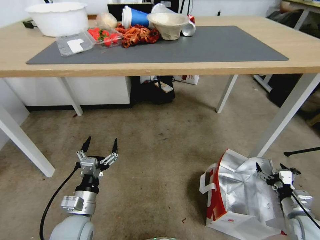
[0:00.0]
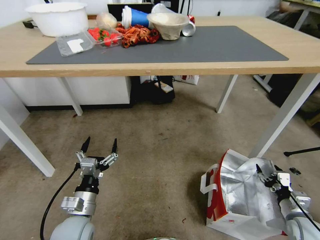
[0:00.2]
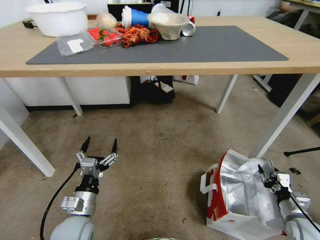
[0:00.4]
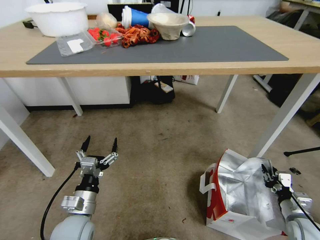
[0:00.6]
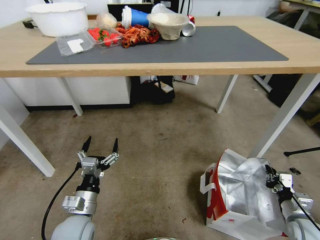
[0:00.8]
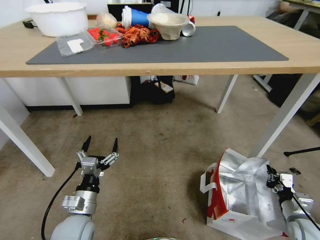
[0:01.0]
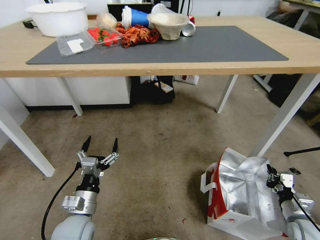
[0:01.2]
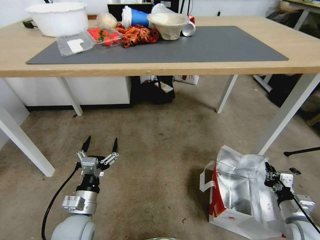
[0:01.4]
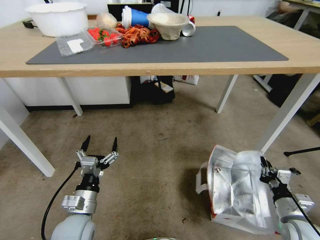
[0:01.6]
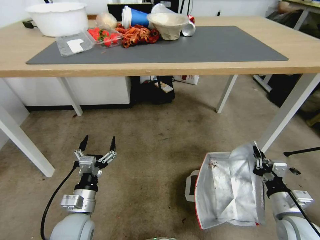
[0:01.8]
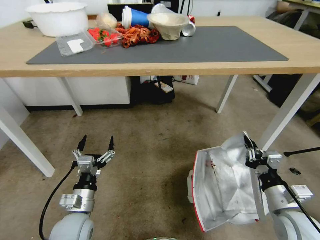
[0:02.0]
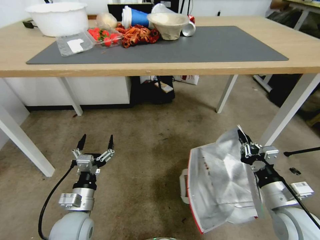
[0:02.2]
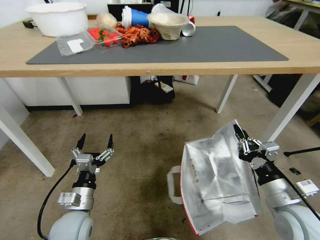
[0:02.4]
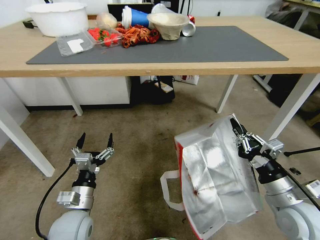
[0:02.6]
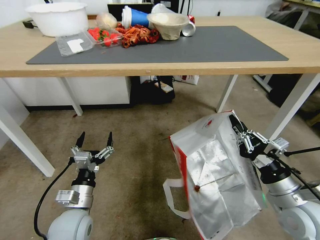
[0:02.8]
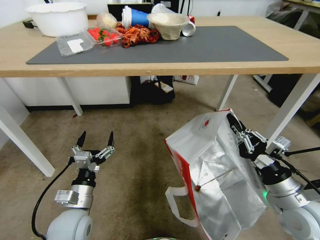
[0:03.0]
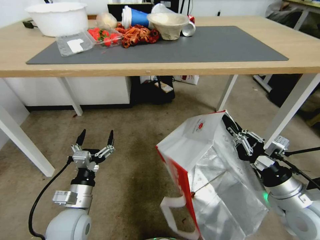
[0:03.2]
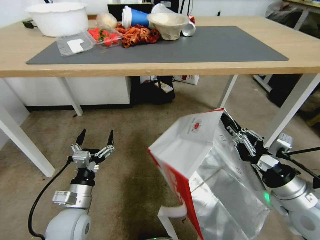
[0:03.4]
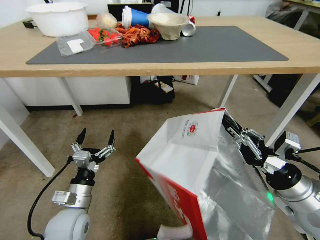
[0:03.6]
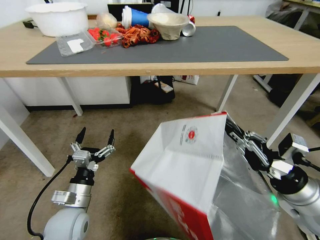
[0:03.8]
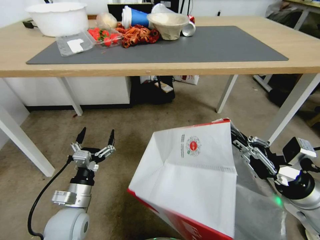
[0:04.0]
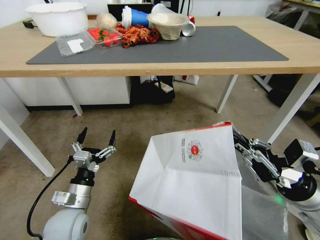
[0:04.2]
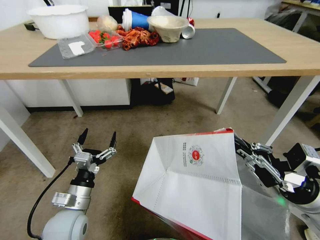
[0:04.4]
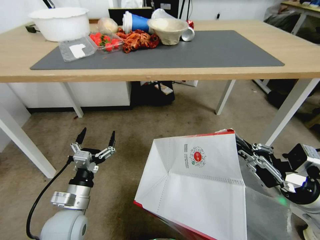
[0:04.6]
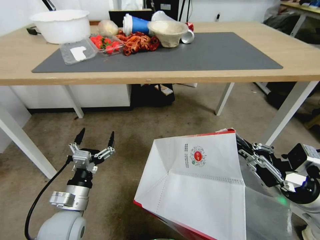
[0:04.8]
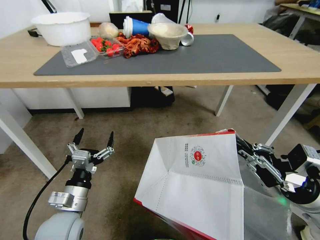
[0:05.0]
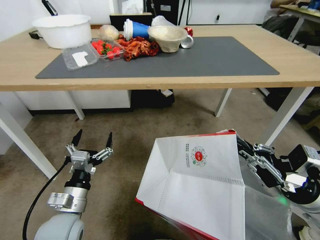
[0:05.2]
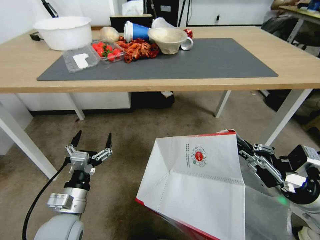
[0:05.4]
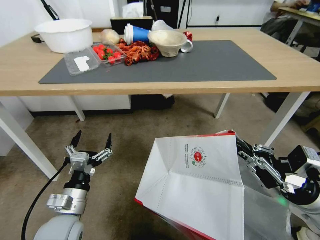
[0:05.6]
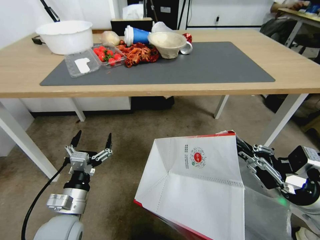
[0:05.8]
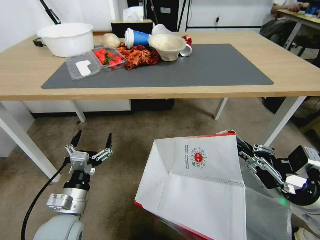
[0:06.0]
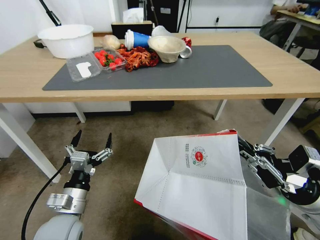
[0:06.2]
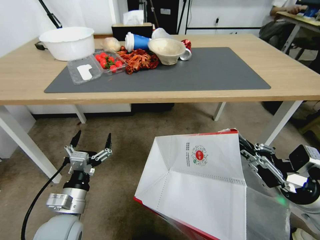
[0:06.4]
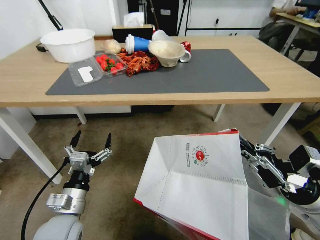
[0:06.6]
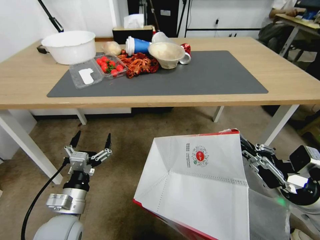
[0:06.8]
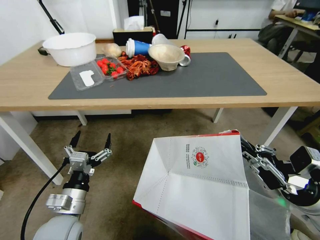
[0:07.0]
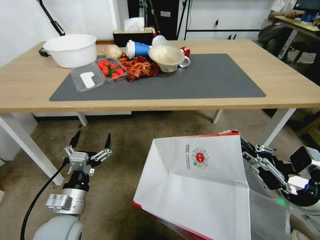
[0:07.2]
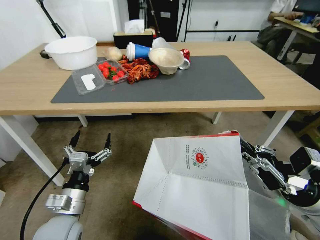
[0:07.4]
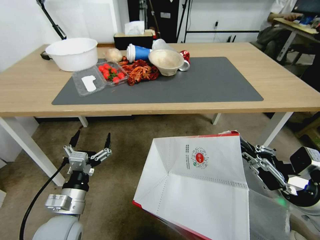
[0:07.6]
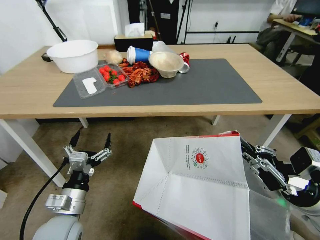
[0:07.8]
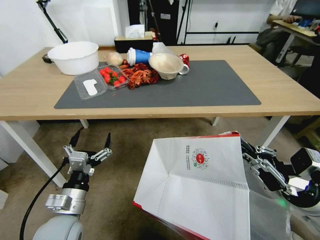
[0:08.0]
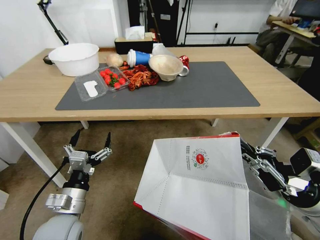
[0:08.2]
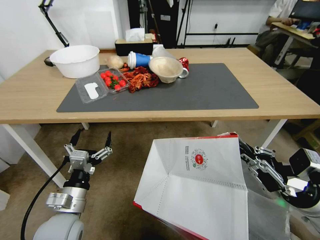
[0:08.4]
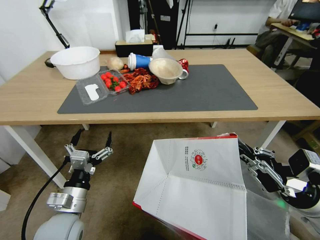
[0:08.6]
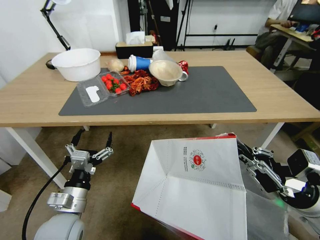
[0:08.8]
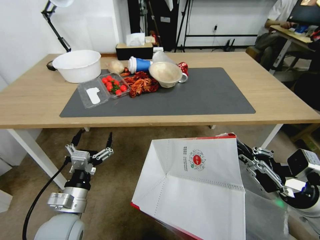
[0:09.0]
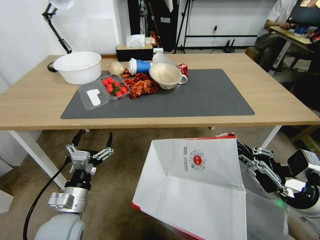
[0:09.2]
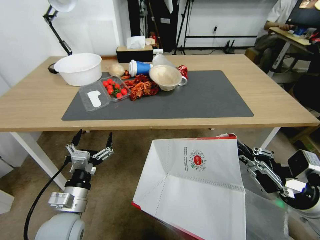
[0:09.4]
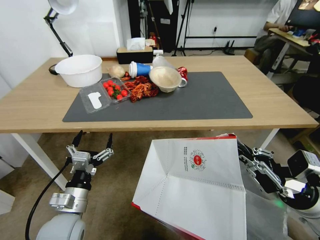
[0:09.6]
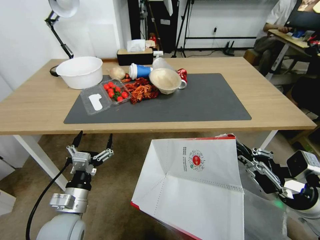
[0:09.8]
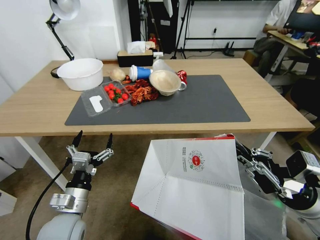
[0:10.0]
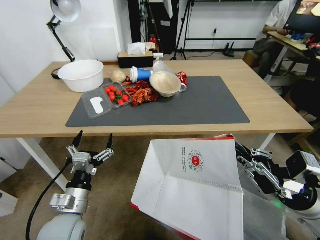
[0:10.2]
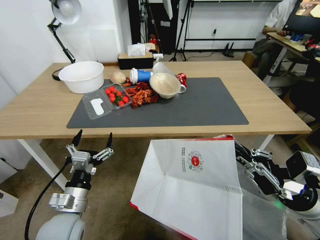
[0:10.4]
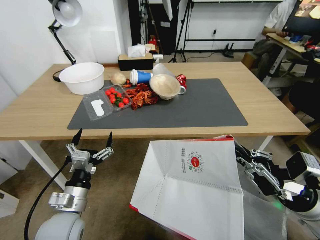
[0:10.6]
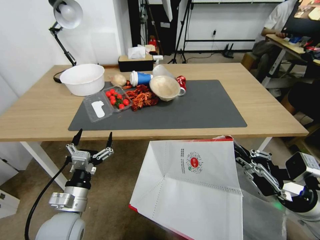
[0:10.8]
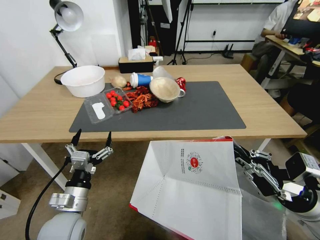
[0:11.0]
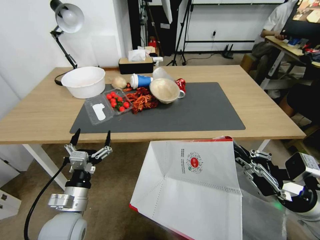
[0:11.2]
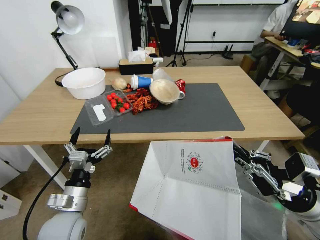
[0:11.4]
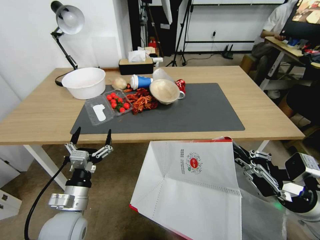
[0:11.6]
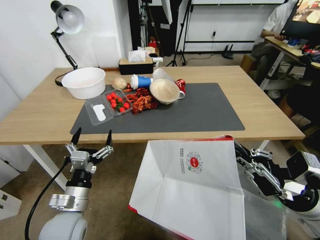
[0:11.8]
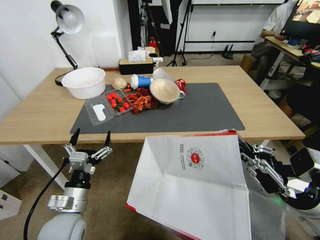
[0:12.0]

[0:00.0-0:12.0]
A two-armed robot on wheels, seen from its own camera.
Task of the whole recording: Pick up the food delivery bag from the floor and place it on the table.
0:00.0 to 0:01.6: The right gripper is displaced to the left by some 5 cm, and closes its fingers.
0:01.6 to 0:03.0: The right gripper travels upward and to the left by about 15 cm.
0:03.0 to 0:04.4: The right gripper ends up some 5 cm from where it was.

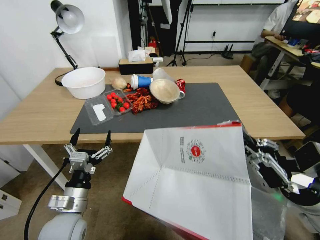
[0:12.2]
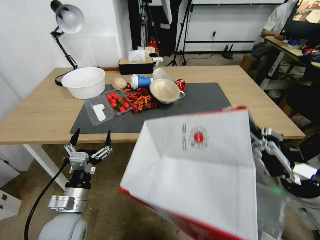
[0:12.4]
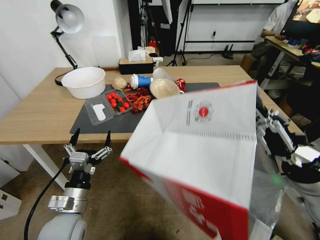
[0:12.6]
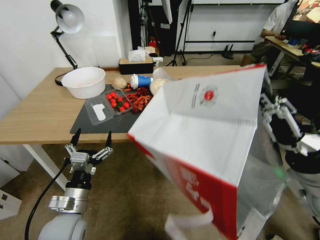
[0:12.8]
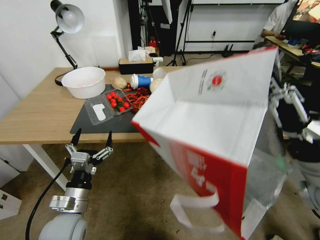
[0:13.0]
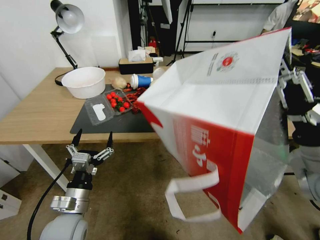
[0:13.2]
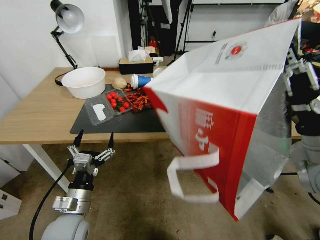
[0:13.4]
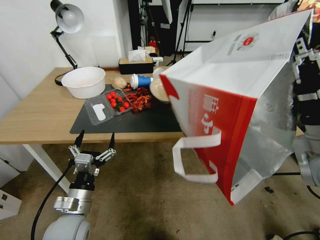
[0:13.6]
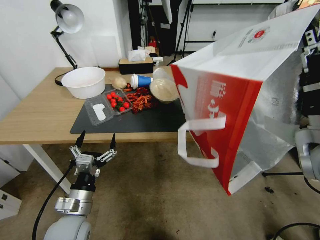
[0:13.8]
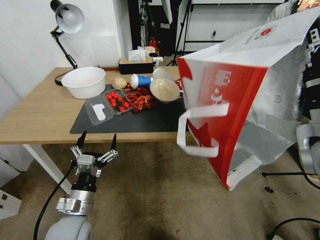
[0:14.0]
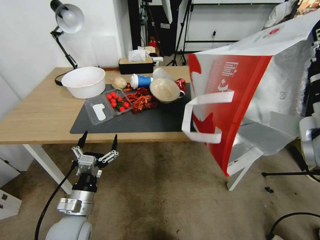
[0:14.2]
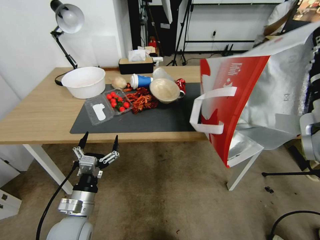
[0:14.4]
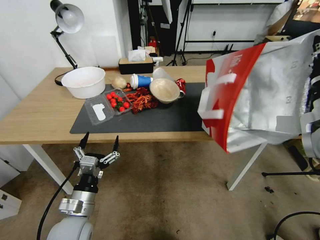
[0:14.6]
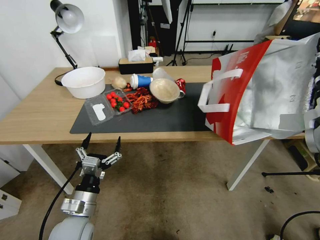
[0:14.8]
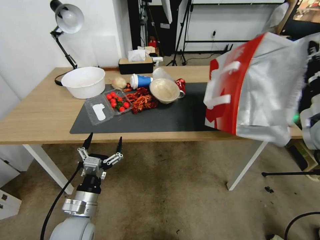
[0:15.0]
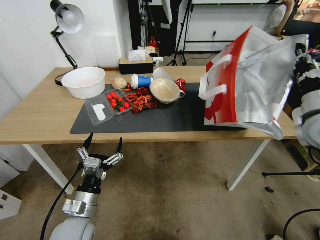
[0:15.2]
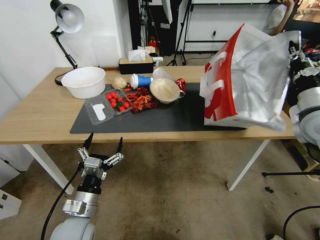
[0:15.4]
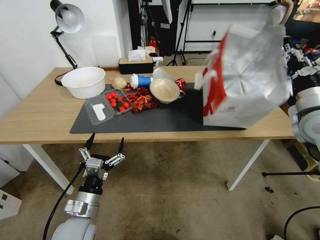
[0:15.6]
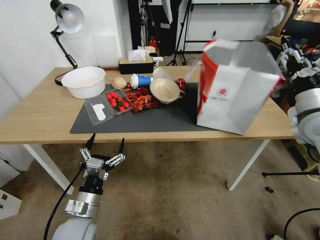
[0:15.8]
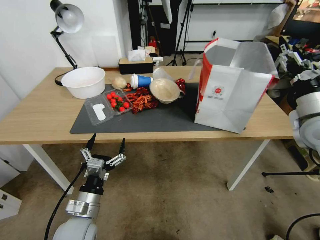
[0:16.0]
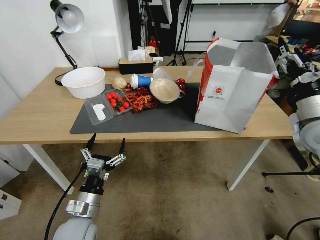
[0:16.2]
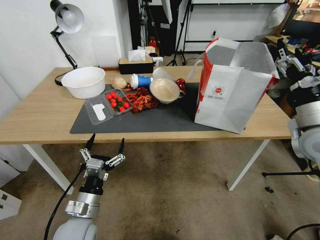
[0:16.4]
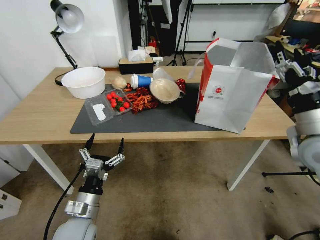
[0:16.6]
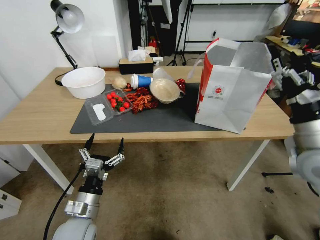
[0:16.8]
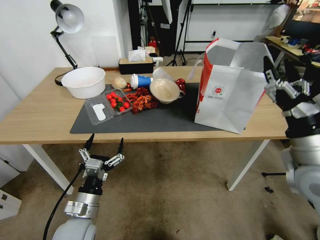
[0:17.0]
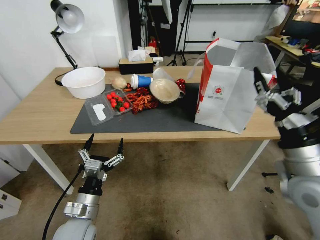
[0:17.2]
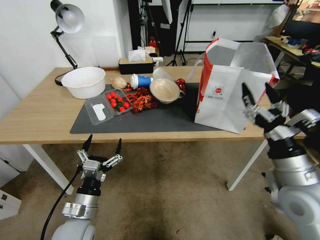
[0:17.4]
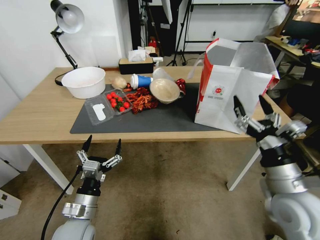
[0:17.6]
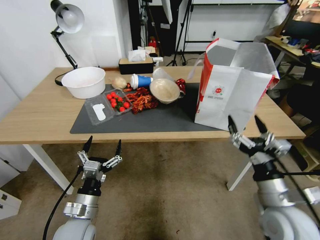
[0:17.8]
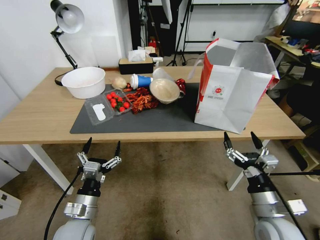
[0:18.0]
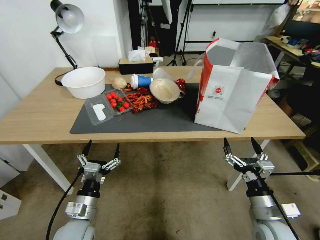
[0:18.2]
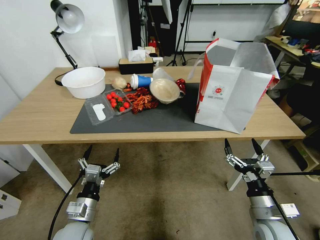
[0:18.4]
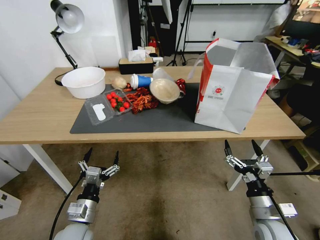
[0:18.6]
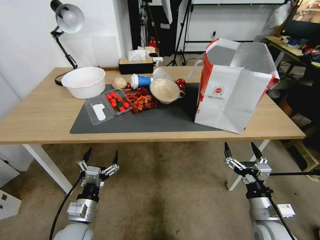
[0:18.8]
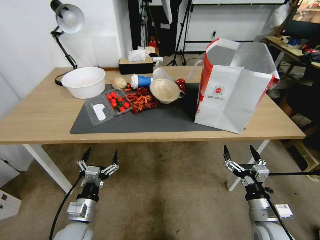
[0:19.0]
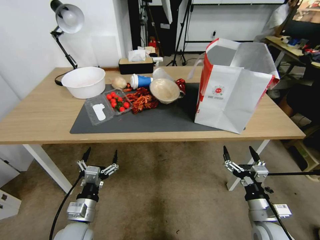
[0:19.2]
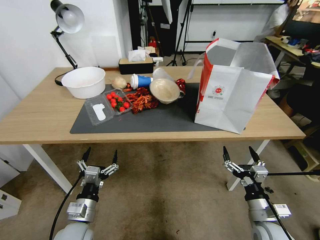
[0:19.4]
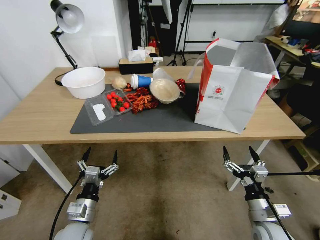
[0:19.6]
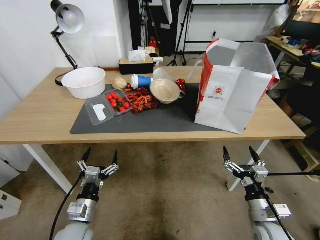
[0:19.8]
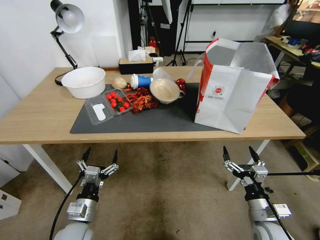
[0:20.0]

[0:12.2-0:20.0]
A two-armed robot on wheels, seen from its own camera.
Task of the whole recording: Pick up the food delivery bag from the floor and place it on the table.
0:12.2 to 0:13.8: The right gripper travels upward and forward by approximately 10 cm.
0:13.8 to 0:15.4: The right gripper shifts approximately 15 cm forward and to the right.
0:15.4 to 0:16.8: The right gripper heads backward and to the left, covering roughly 10 cm, and opens its fingers.
0:16.8 to 0:18.4: The right gripper heads downward and backward, covering approximately 25 cm.
0:18.4 to 0:20.0: The grippers make only small movements.
